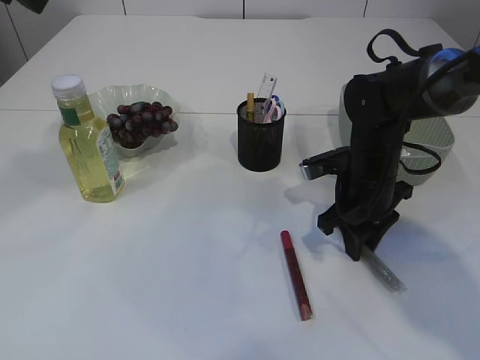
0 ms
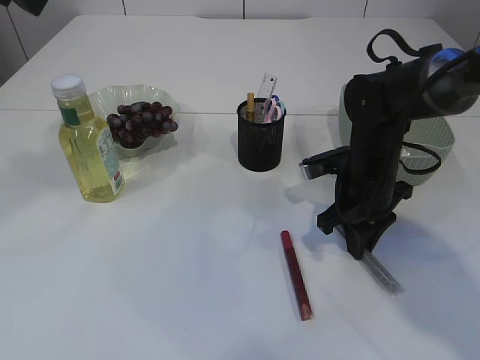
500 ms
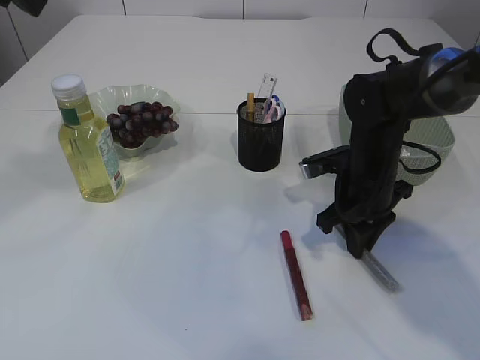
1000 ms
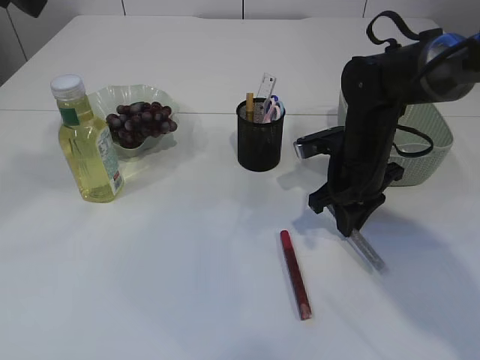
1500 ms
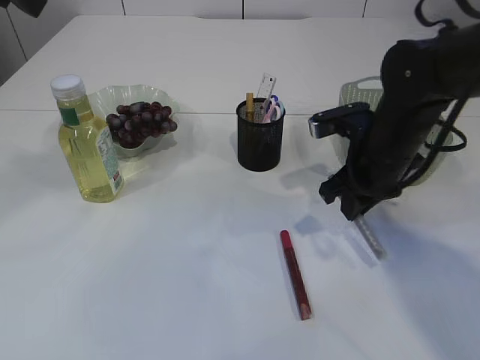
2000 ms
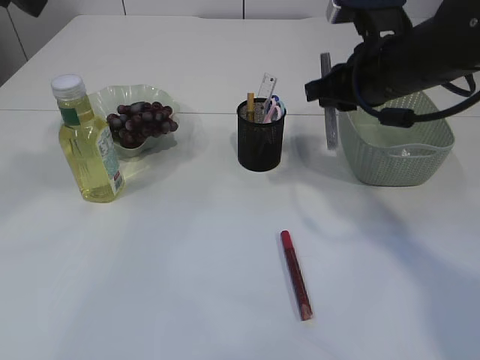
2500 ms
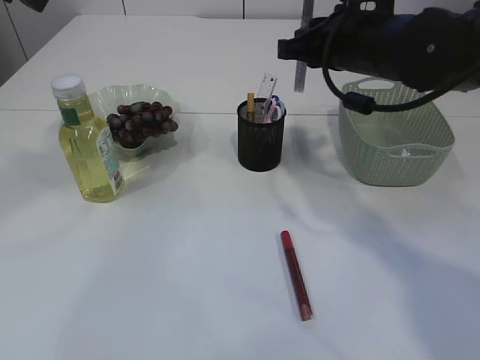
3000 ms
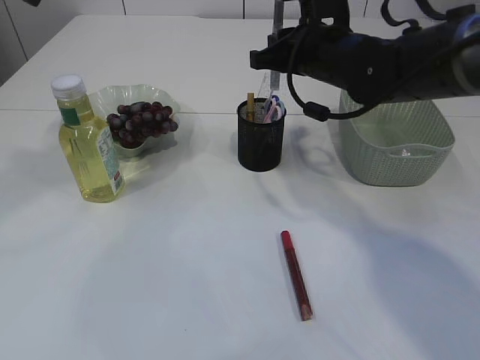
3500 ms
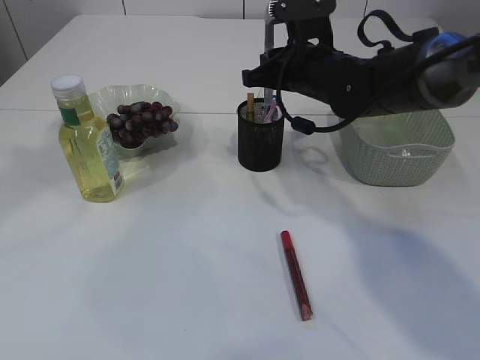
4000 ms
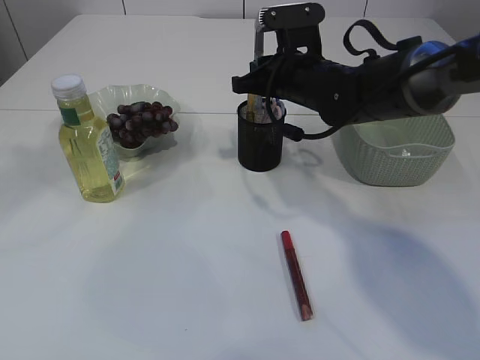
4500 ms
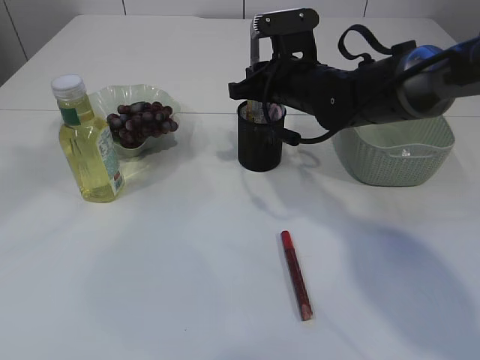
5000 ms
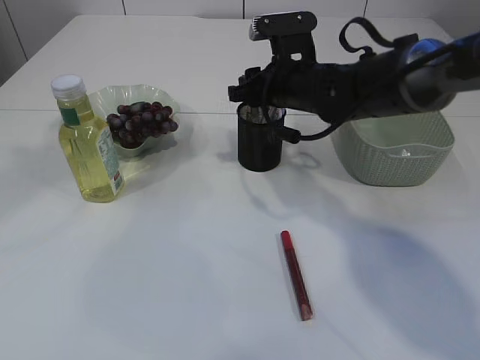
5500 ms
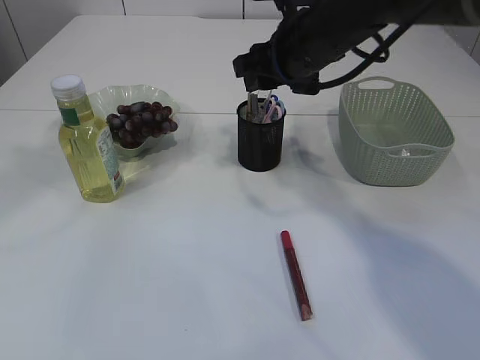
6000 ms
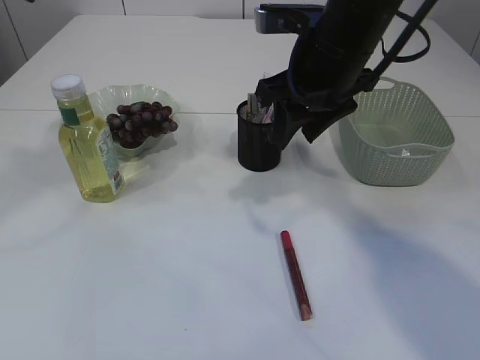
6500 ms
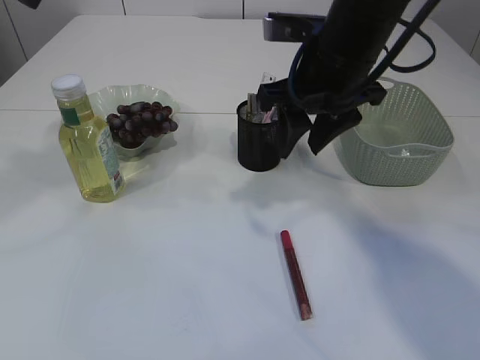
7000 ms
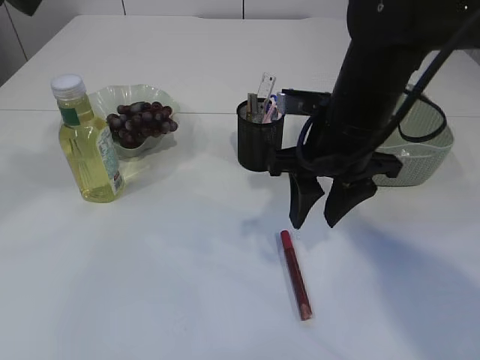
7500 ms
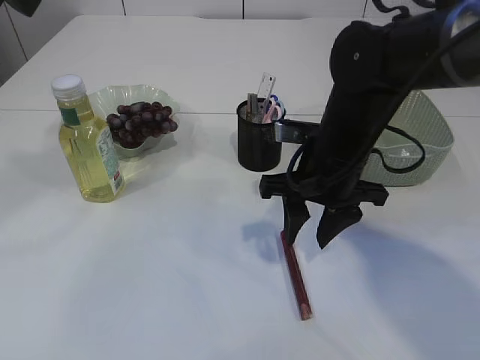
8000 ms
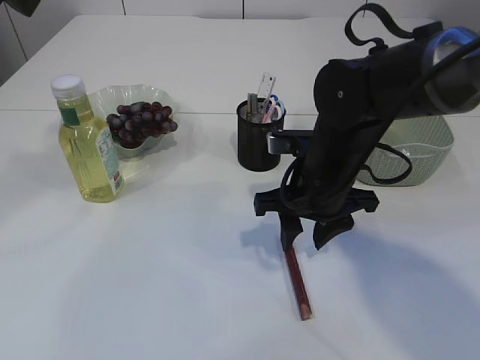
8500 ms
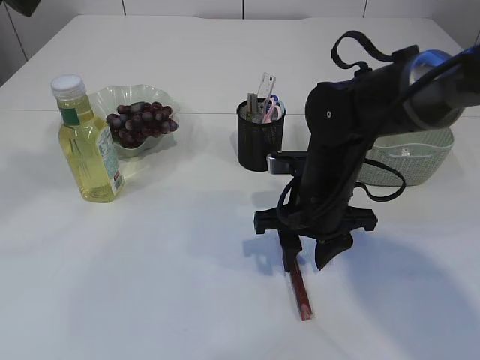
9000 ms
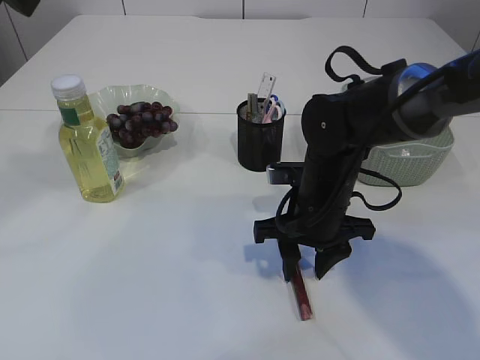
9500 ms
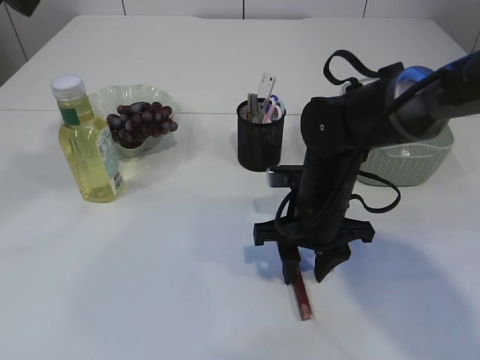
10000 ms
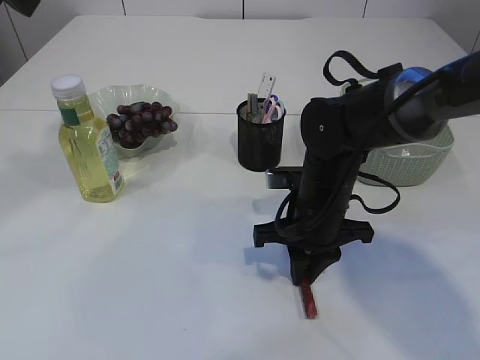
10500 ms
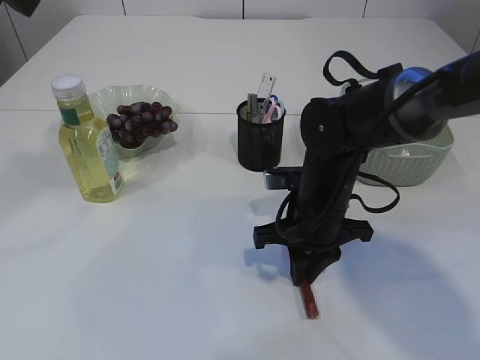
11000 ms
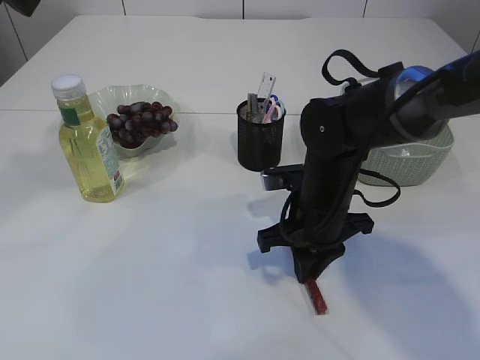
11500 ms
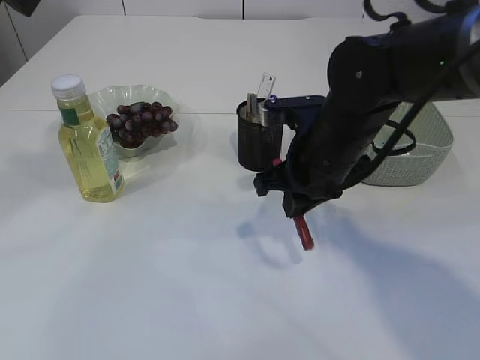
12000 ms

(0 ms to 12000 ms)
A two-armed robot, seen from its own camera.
Step, 0 ms - 2000 ms: pick up the silver glue.
Step, 2500 ms - 5500 ms: place the silver glue into the pen holder.
Step, 6000 ms - 12000 ms: pick up the red glue.
0 ms - 2000 ms: The right gripper shifts approximately 5 cm upward.
2000 ms - 4000 ms: The right gripper travels forward and to the left by some 10 cm.
4000 ms - 6000 ms: The right gripper heads upward, covering about 5 cm, and opens its fingers.
6000 ms - 8000 ms: The right gripper moves downward and backward, roughly 10 cm.
8000 ms - 10000 ms: The right gripper shifts about 5 cm downward.
10000 ms - 12000 ms: The right gripper moves upward, approximately 5 cm, and closes its fingers.

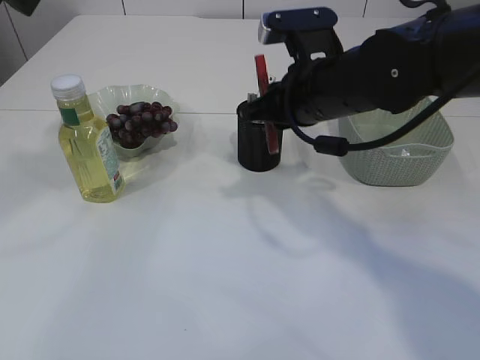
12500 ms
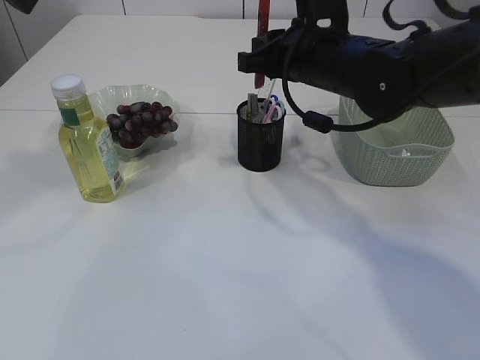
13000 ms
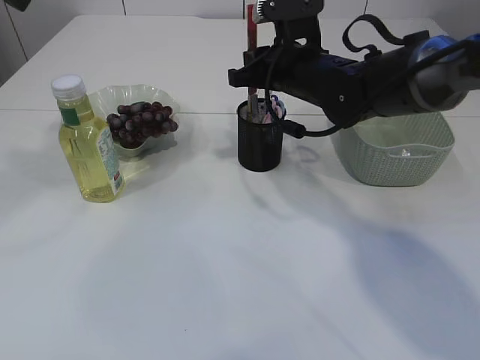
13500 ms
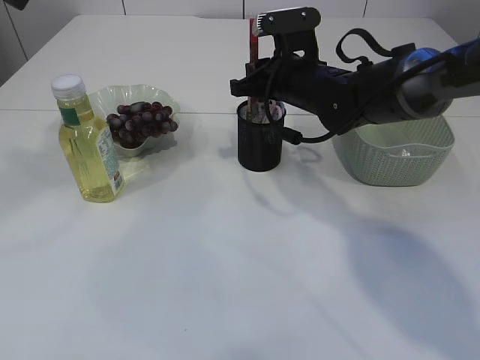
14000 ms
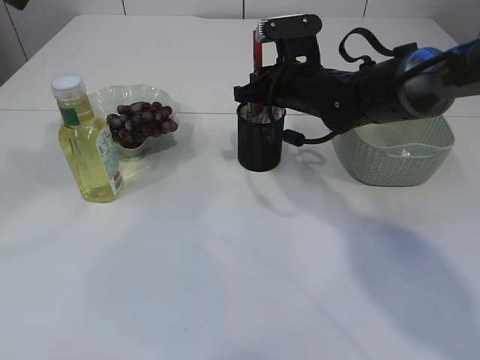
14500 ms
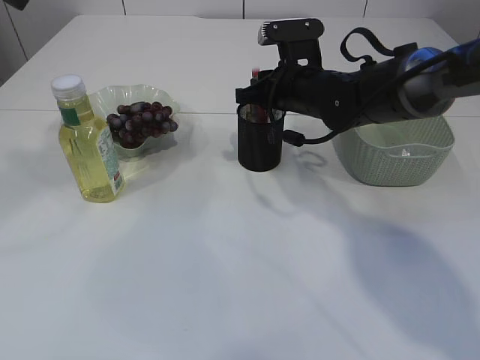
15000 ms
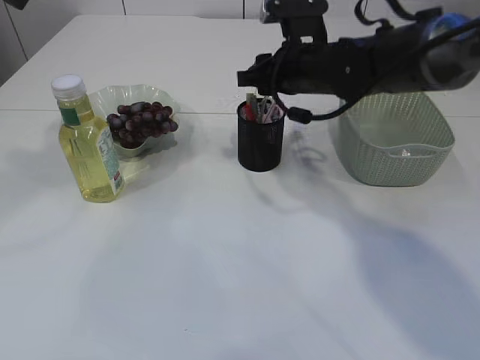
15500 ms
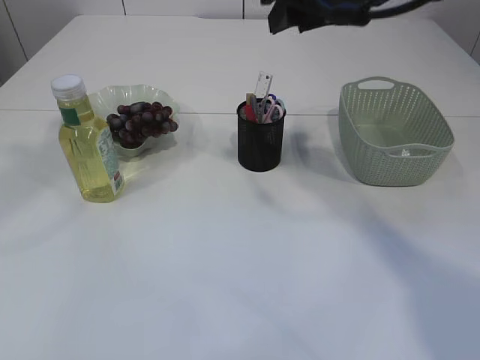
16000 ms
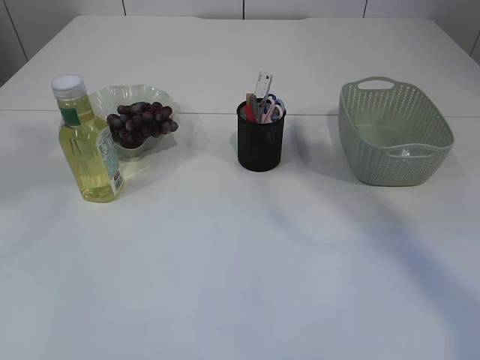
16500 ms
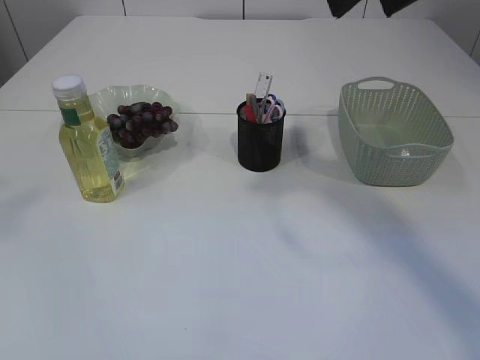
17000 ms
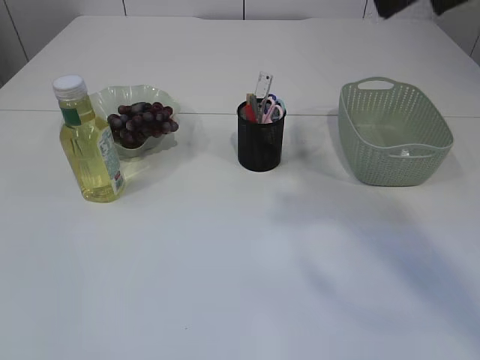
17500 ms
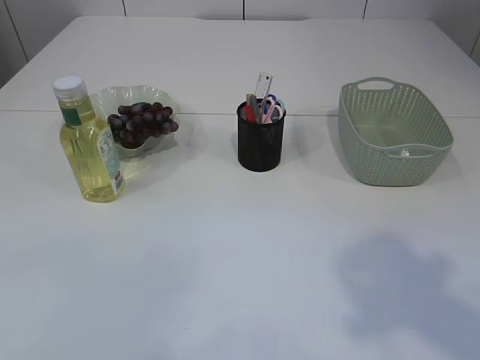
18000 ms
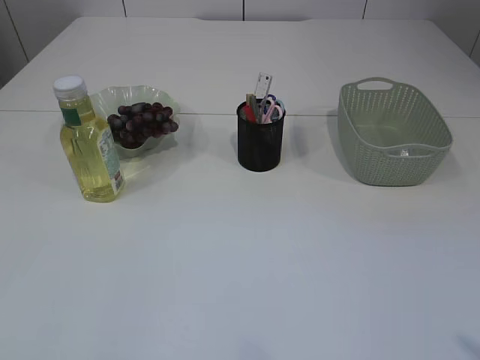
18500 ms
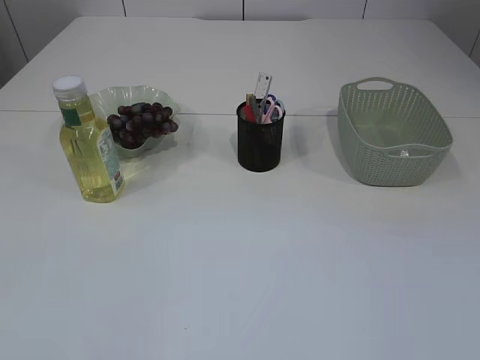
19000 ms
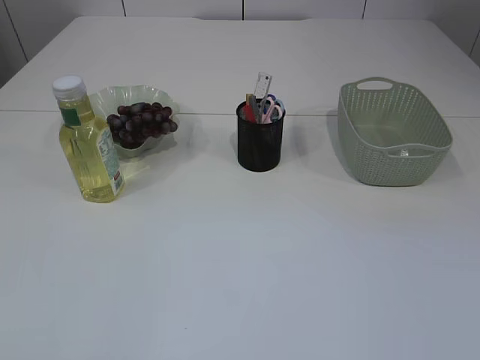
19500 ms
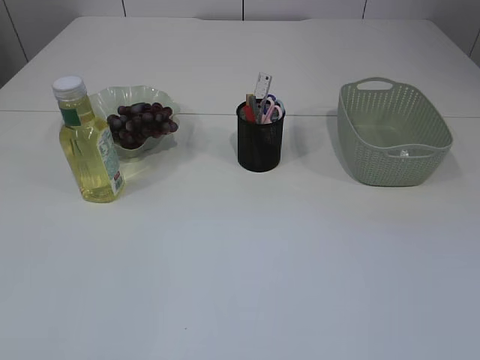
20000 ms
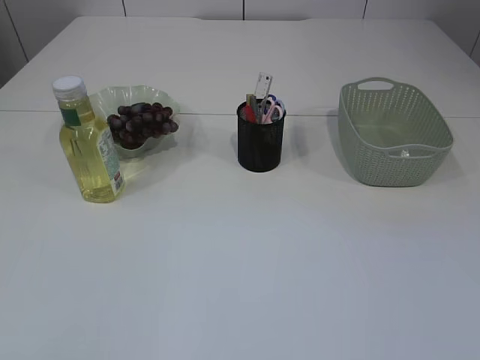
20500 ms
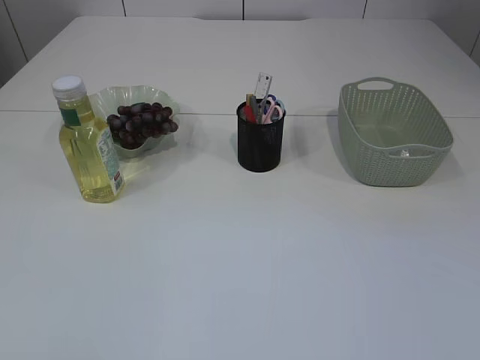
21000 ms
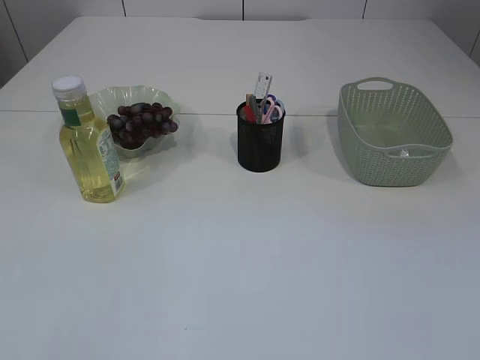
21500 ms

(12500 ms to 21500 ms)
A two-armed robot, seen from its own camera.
Step, 12500 ms - 15500 ms: place the red glue into the pen holder.
12500 ms - 14500 ms: The right gripper travels forward by approximately 10 cm.
14500 ms - 17000 ms: The left gripper is displaced backward, upward and to the left by approximately 15 cm, and opens up; the right gripper heads upward and backward, covering approximately 30 cm, and opens its fingers.
17000 ms - 19500 ms: The right gripper goes about 35 cm backward, downward and to the right.
